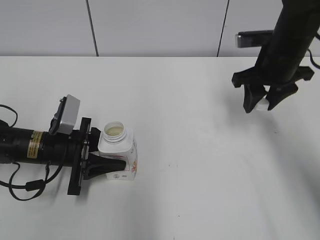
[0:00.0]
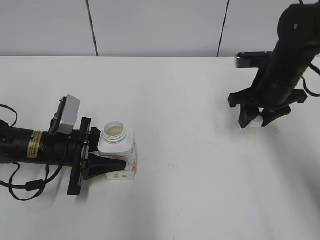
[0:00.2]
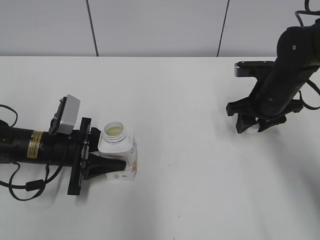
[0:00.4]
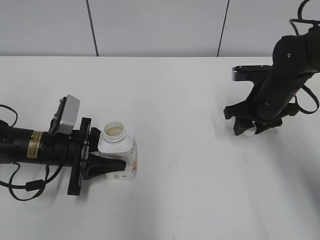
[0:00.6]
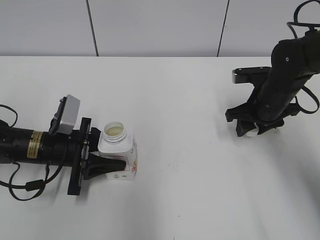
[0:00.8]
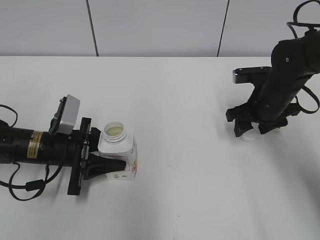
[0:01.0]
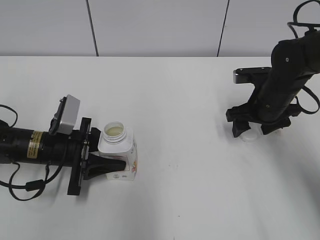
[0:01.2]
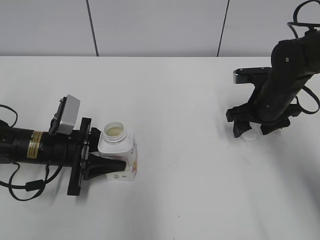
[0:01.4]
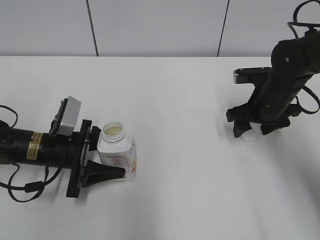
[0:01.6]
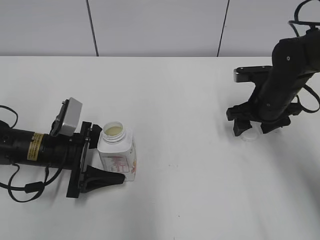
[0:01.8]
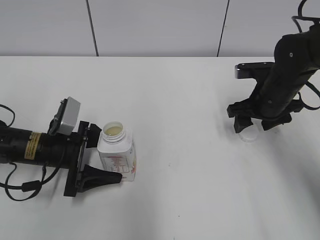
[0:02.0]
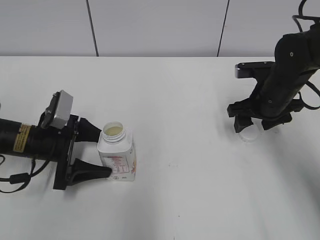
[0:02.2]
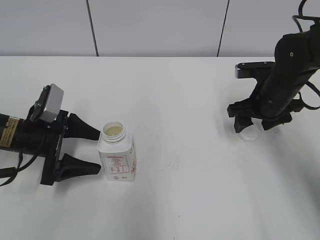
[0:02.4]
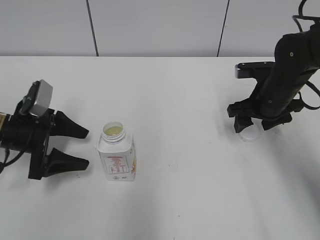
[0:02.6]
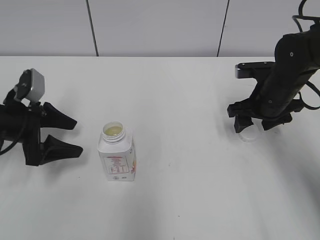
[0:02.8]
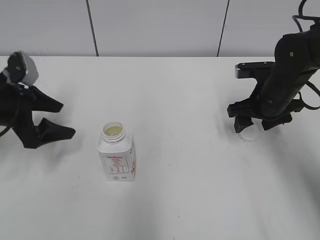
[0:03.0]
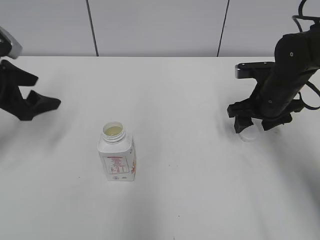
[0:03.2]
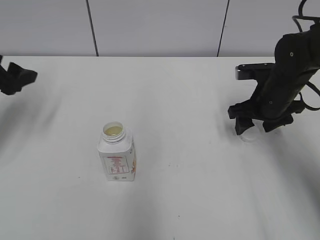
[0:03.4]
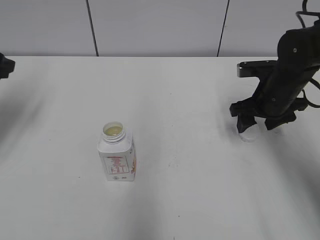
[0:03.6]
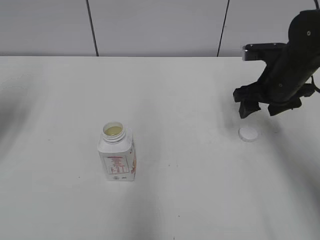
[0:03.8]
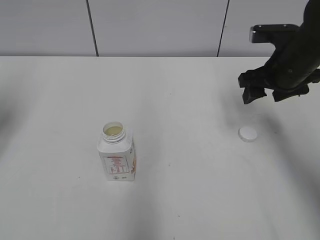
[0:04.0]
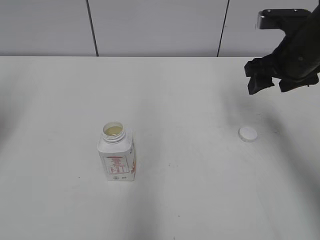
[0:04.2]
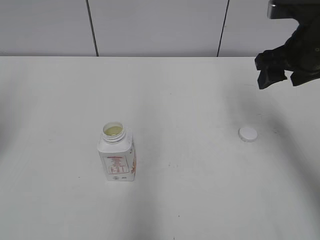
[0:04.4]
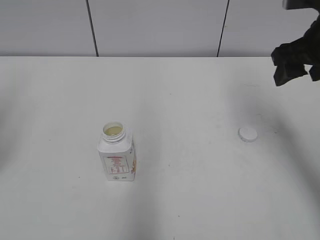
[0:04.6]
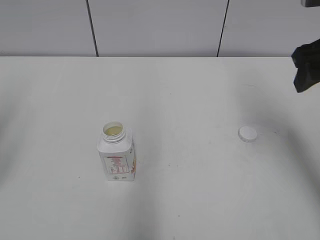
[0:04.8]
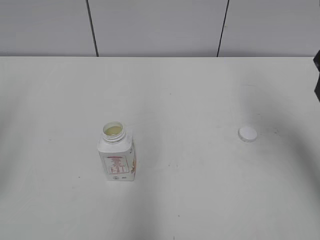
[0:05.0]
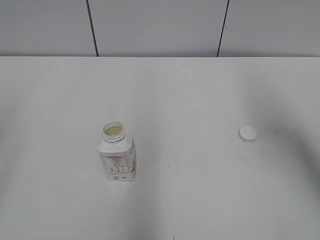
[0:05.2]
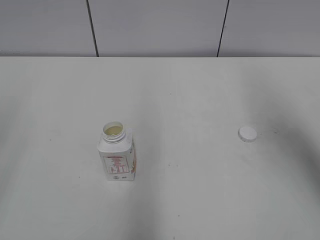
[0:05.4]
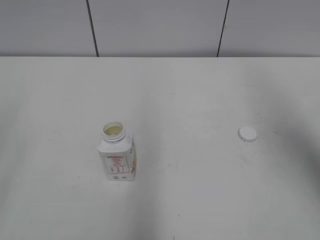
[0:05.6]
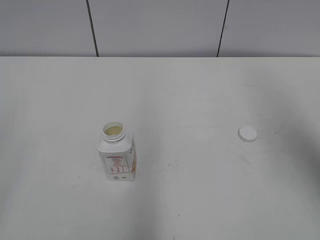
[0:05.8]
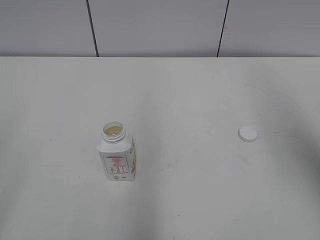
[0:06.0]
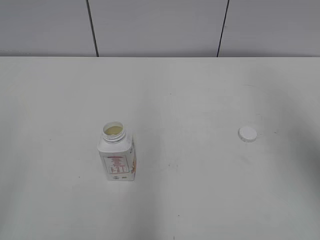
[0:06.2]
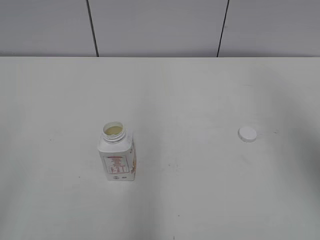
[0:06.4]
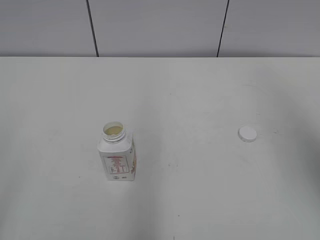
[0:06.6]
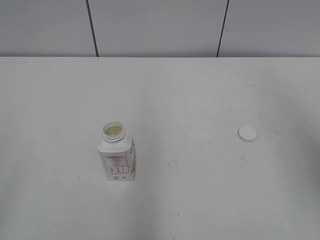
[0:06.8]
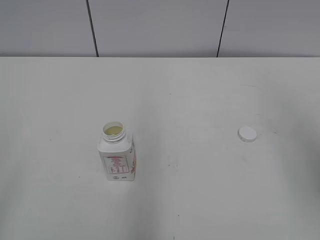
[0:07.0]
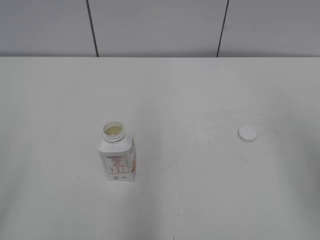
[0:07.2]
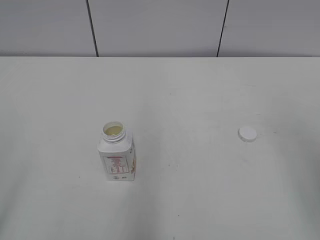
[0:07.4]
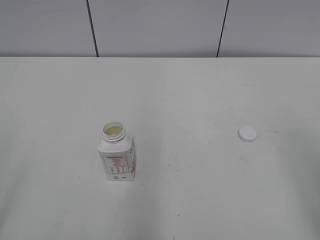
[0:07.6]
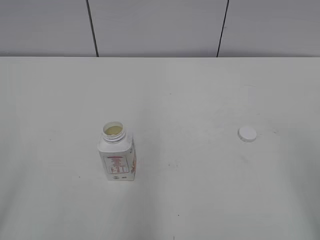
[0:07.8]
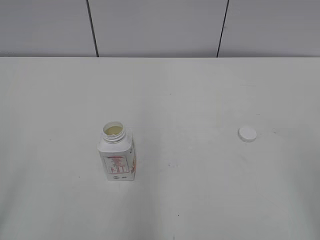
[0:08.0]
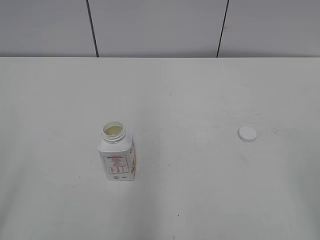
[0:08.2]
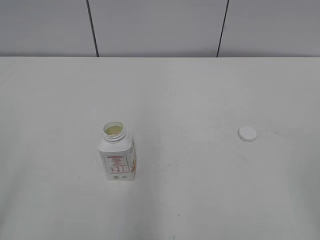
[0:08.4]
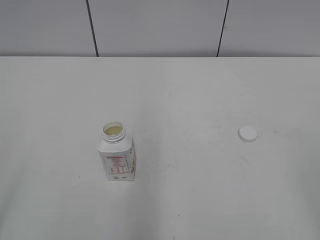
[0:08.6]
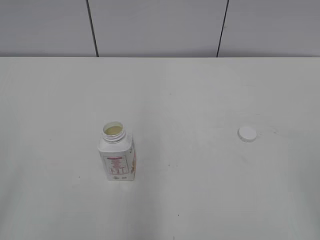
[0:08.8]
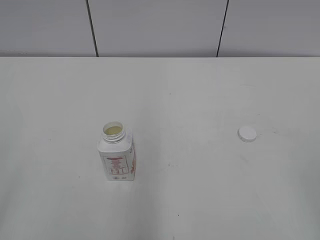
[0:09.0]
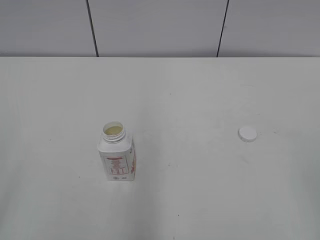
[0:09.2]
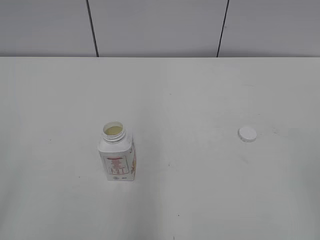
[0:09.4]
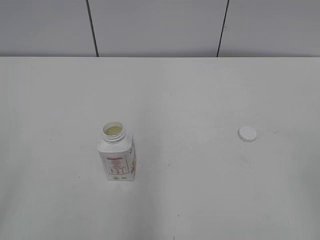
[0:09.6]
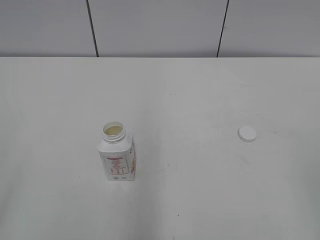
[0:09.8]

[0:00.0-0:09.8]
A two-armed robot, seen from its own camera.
Step, 0:01.2 to 0:02.0: Place the bottle on the table with the left gripper.
0:00.0 to 0:01.4: The right gripper travels downward by roughly 10 cm, and opens.
0:01.4 to 0:02.8: The left gripper is displaced to the left and upward by roughly 10 cm, and opens its fingers.
0:02.8 to 0:04.2: The left gripper moves upward and to the left, about 20 cm, and closes, while the right gripper shifts roughly 10 cm upward.
0:04.2 to 0:05.6: The right gripper travels upward and backward by about 20 cm.
